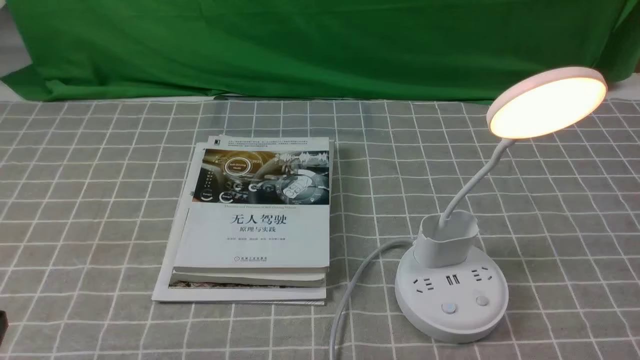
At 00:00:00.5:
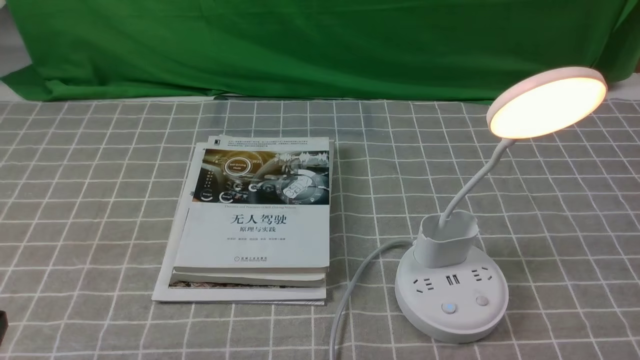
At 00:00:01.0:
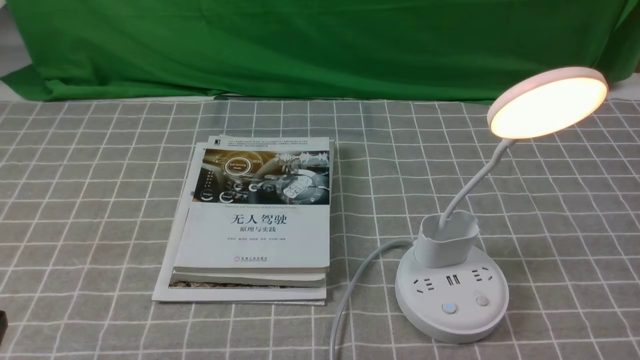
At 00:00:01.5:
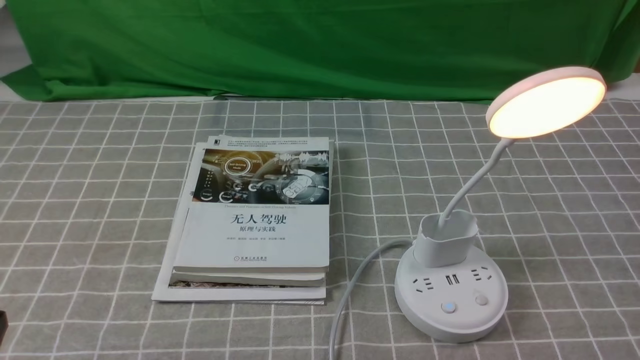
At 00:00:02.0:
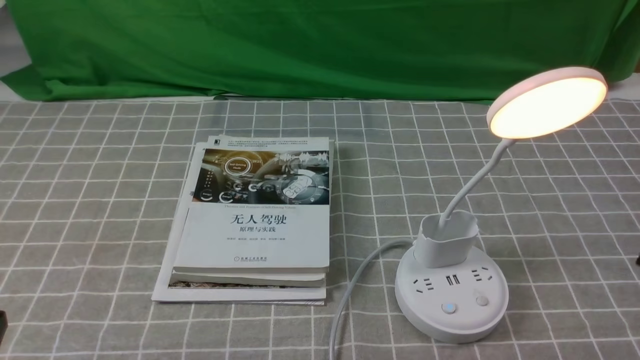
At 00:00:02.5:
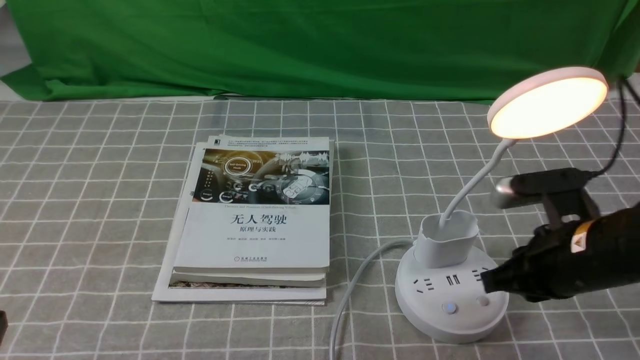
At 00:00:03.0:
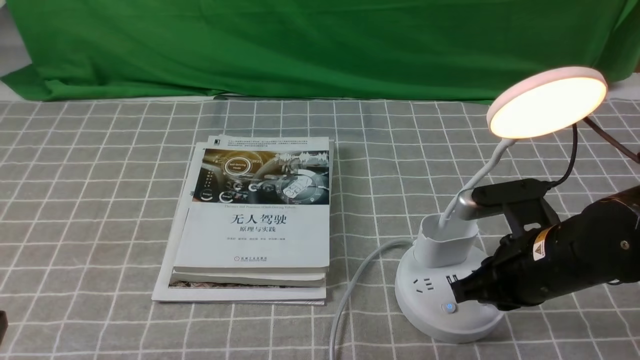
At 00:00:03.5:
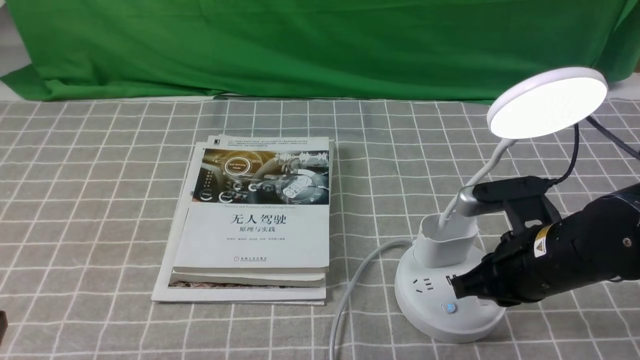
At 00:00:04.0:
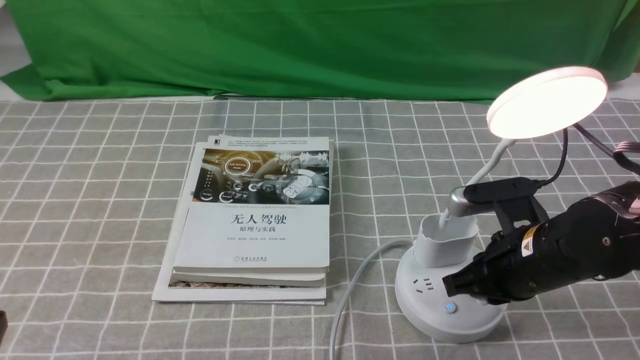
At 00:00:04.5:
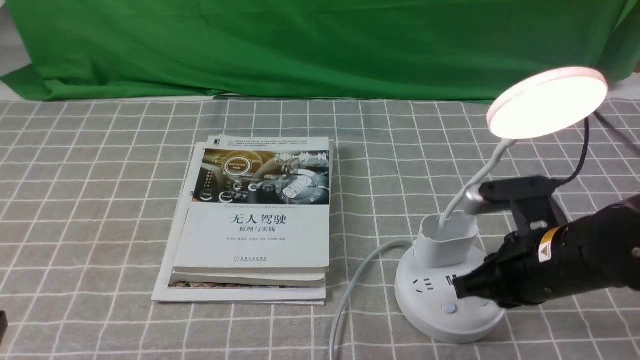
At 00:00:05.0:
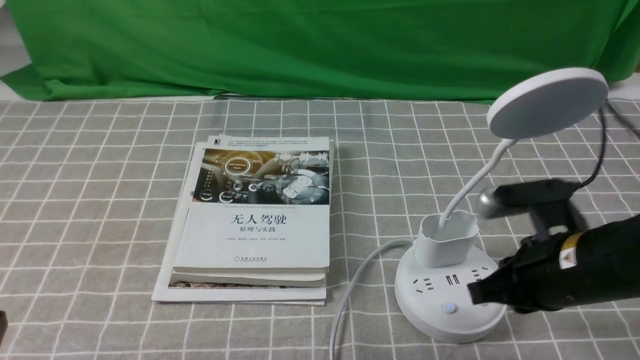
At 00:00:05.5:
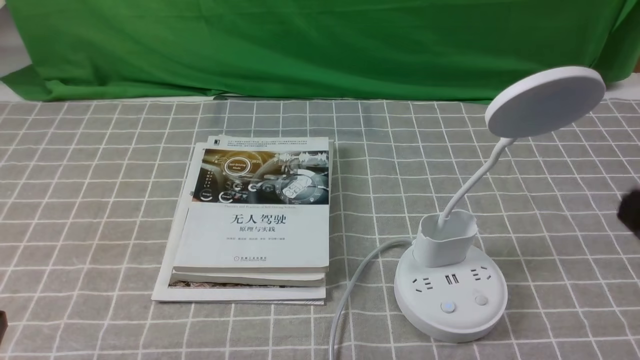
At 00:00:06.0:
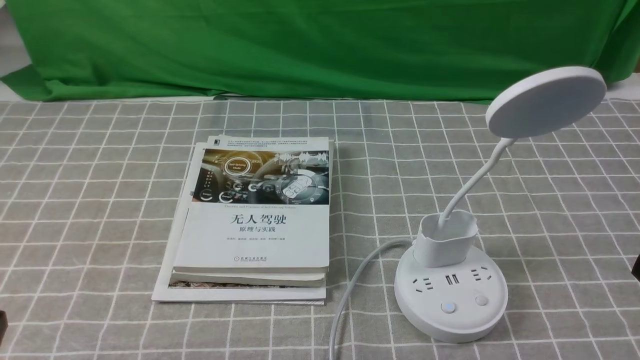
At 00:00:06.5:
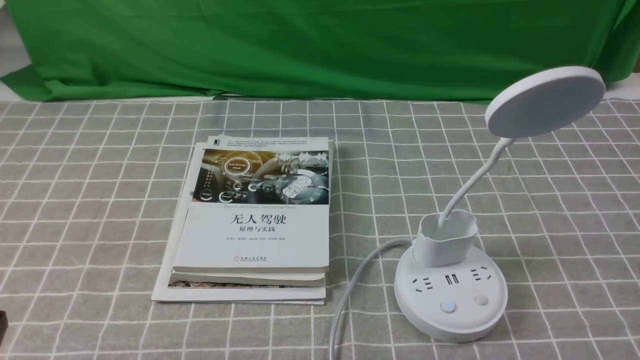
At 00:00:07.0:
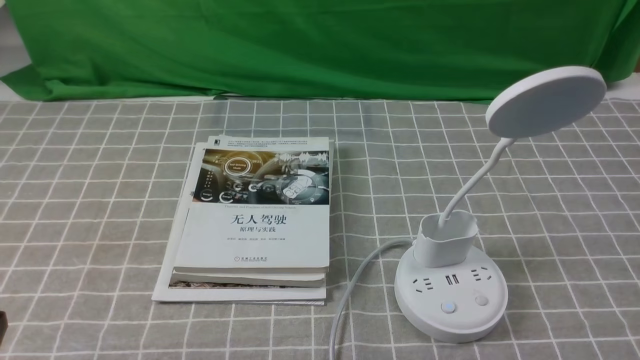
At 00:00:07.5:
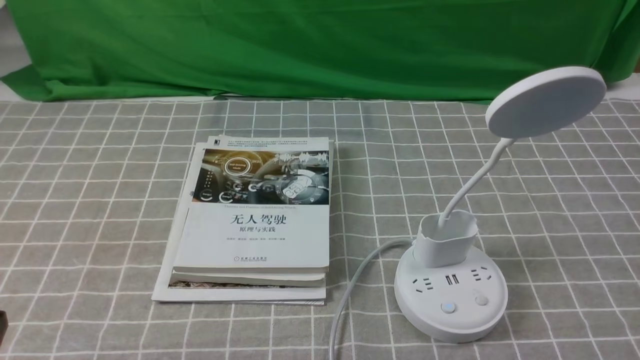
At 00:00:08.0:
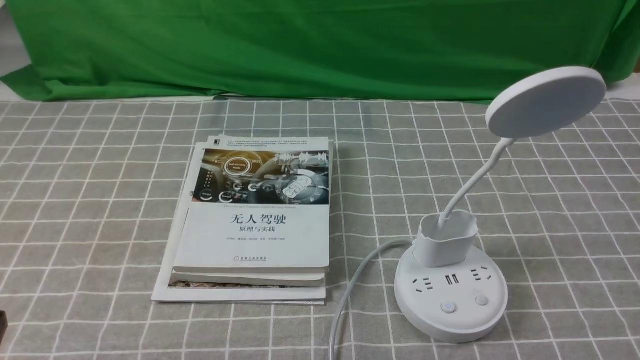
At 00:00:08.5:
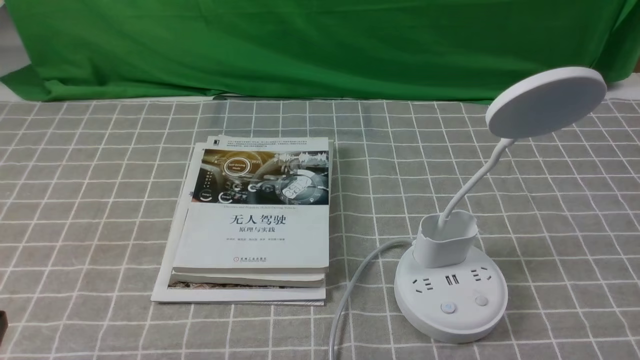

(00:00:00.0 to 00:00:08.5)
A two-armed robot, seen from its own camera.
Task of the whole recording: turn off the desk lamp on the grey coffee tablecloth by hand.
Step, 00:00:00.0 - 00:00:05.0: use the right arm to press the button switch on the lamp holder.
00:00:02.0 - 00:00:04.0: The right gripper shifts some 15 cm to the left, forward and downward, and closes its fingers.
00:00:04.0 - 00:00:06.5: The right gripper shifts roughly 25 cm backward, to the right and upward.

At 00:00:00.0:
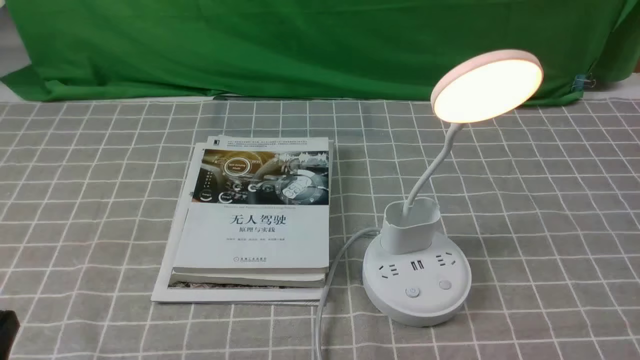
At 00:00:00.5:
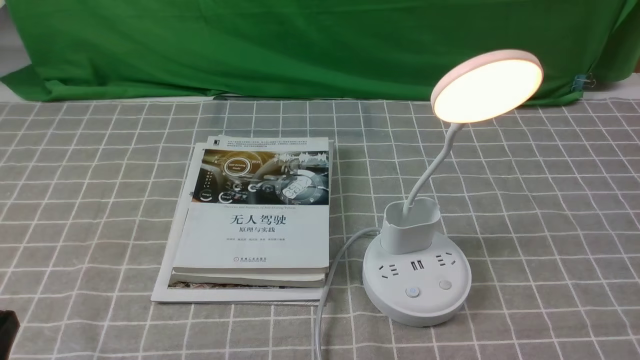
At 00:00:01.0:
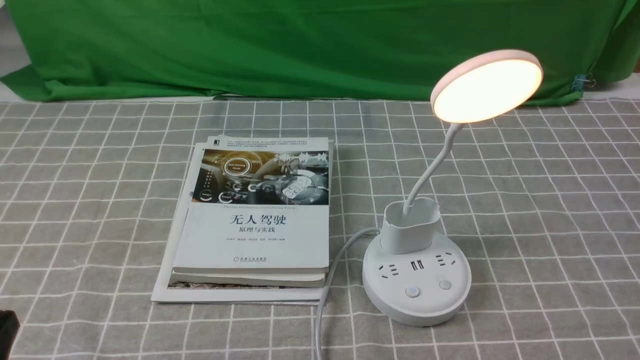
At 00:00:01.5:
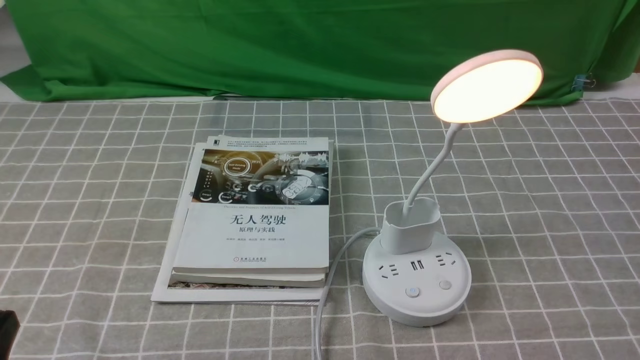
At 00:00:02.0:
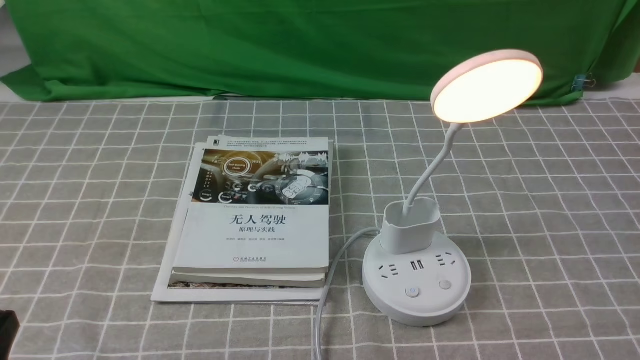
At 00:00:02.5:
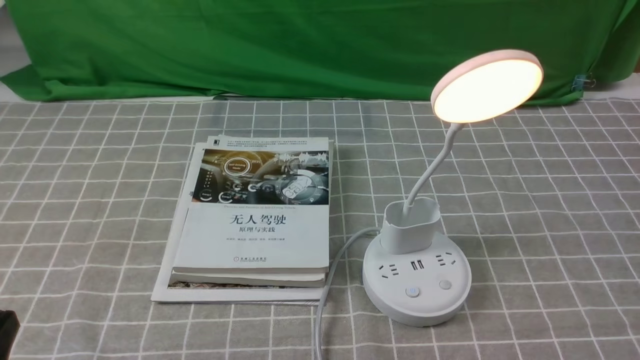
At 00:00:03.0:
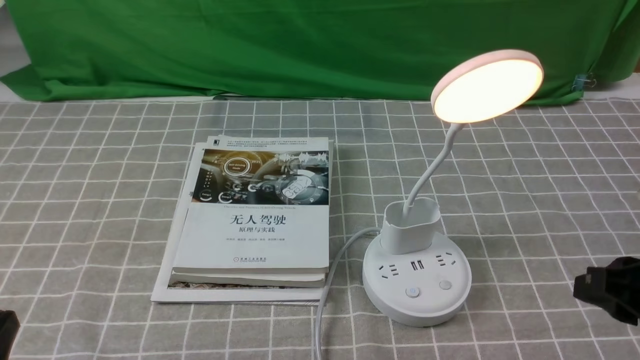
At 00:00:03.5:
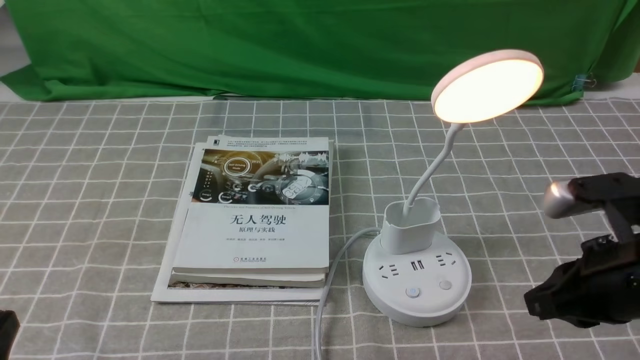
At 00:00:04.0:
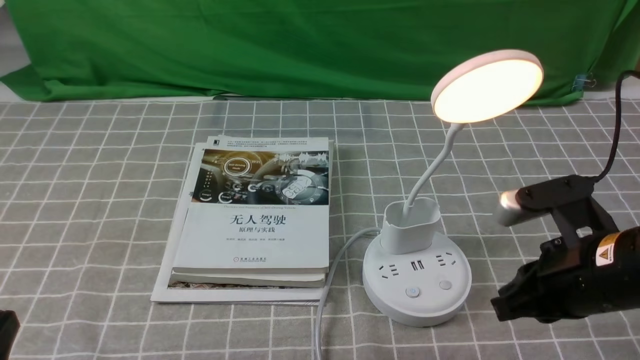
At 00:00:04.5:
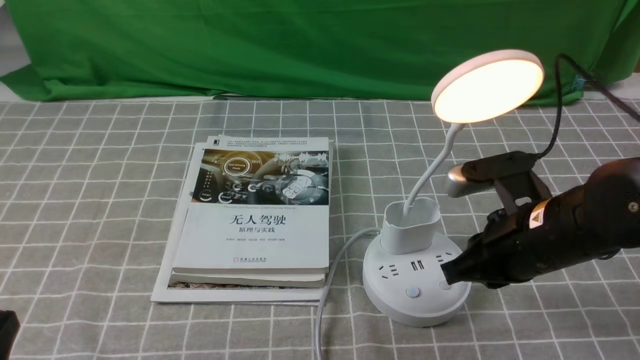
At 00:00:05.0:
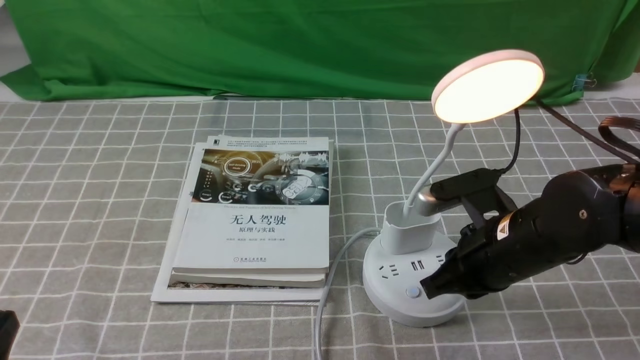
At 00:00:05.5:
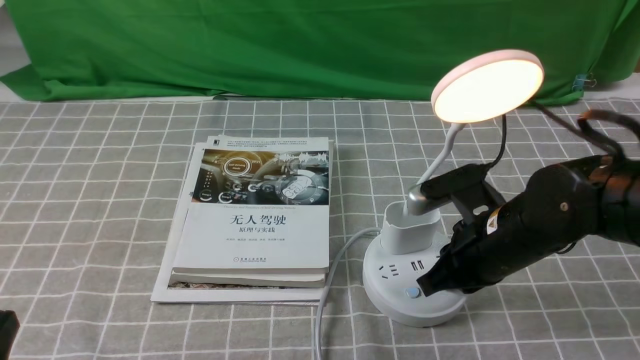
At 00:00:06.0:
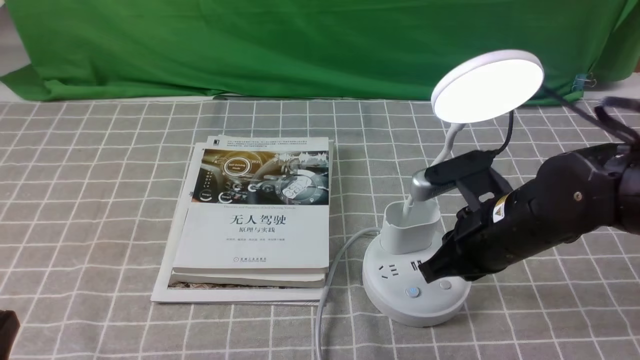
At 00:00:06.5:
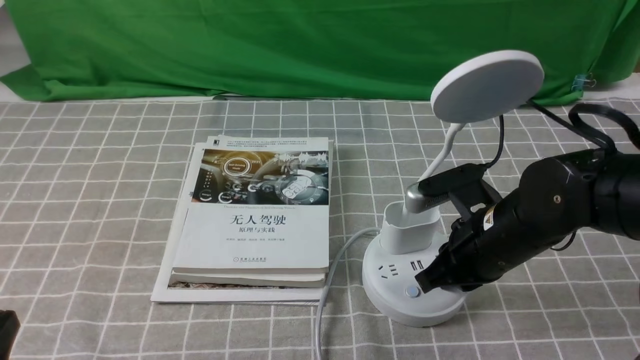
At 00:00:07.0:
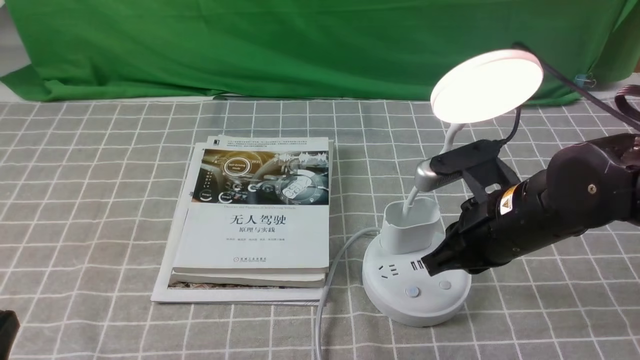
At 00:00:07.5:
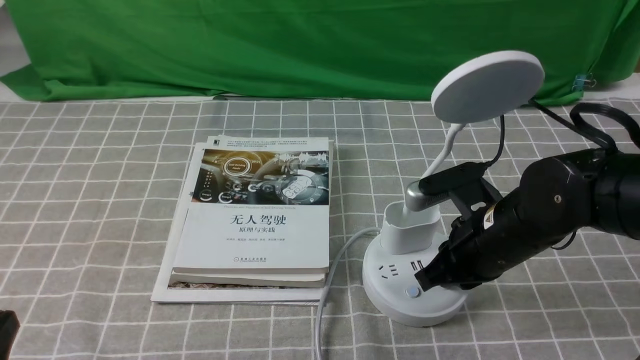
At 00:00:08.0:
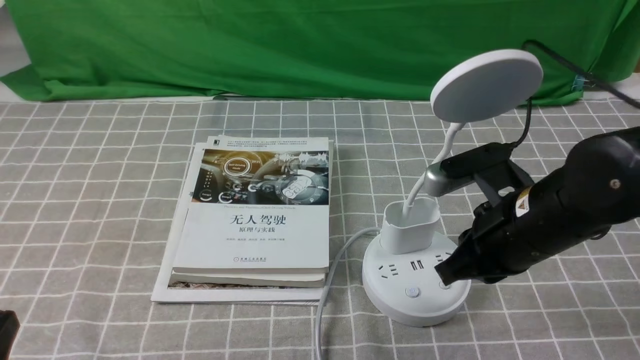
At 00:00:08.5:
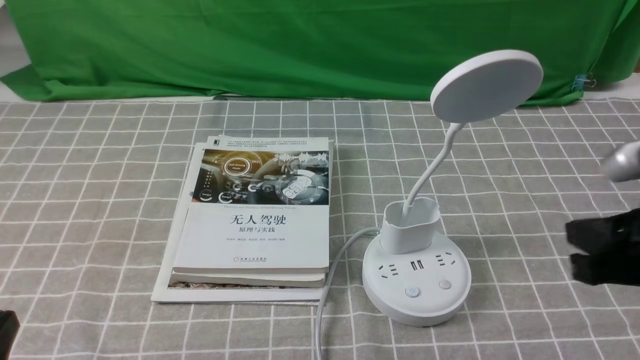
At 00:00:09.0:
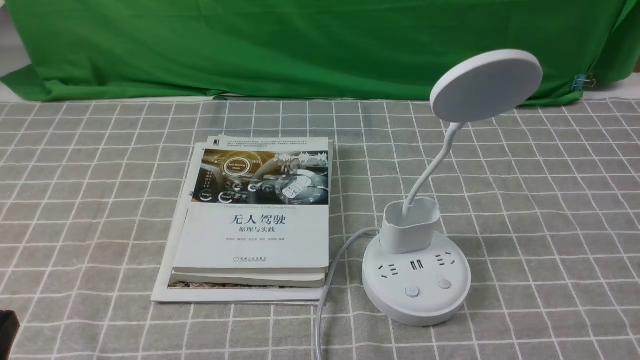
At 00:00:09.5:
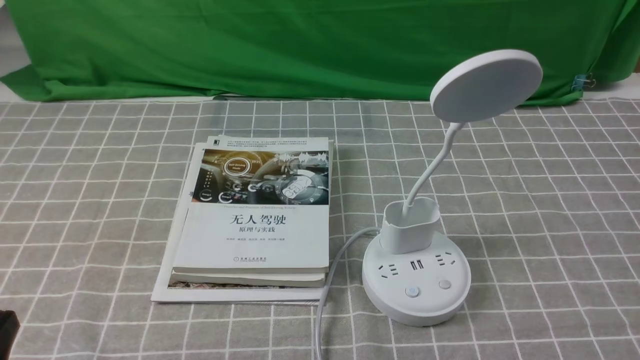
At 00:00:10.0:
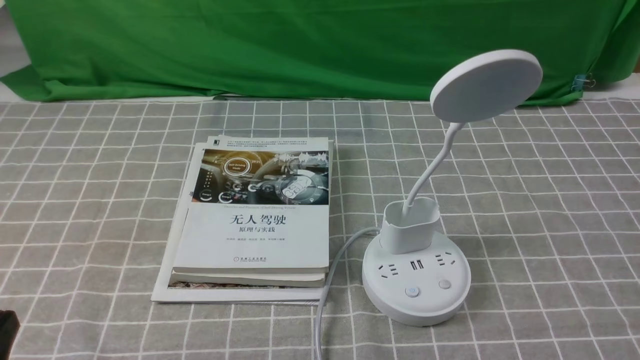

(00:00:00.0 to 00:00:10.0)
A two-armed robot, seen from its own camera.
Task of the whole recording: turn off the desk lamp on the grey coffee tablecloth by hand.
Step, 00:00:00.0 - 00:00:07.5: use the right arm to press the button switch on the lamp holder.
00:00:02.0 - 00:00:04.0: The right gripper is displaced forward and to the left by approximately 20 cm, and closes up.
00:00:04.0 - 00:00:06.0: The right gripper travels forward and to the left by about 10 cm.
00:00:06.0 - 00:00:08.0: The grippers move only a little.
00:00:08.0 - 00:00:10.0: The right gripper travels backward and to the right by some 20 cm.
